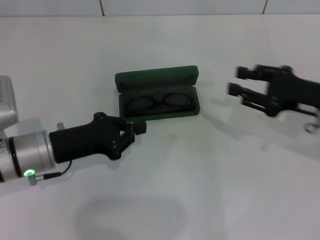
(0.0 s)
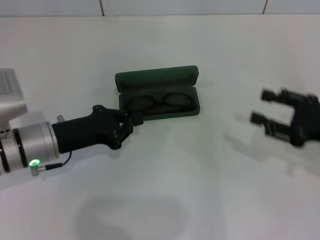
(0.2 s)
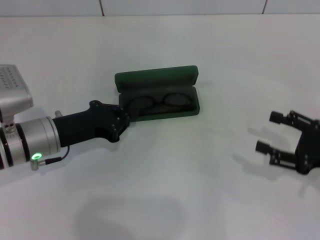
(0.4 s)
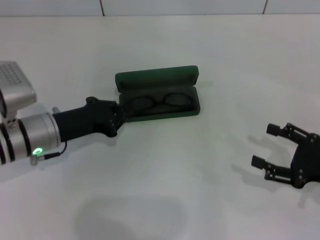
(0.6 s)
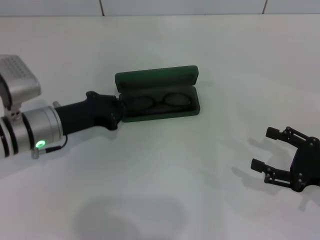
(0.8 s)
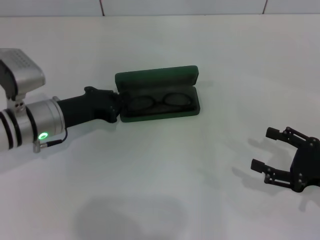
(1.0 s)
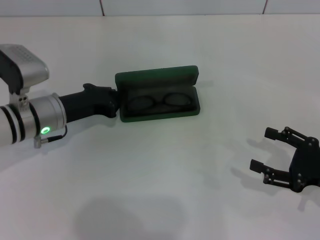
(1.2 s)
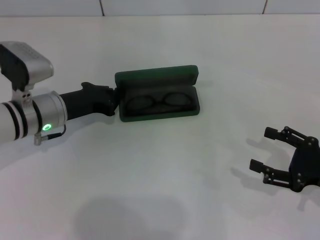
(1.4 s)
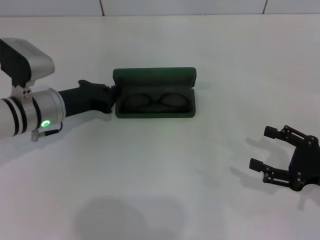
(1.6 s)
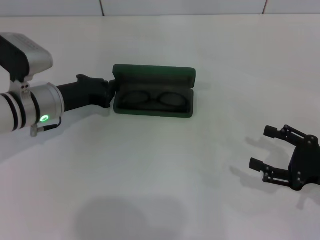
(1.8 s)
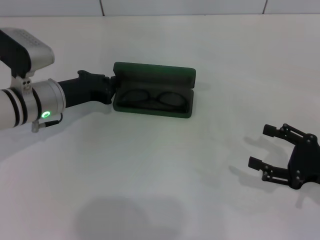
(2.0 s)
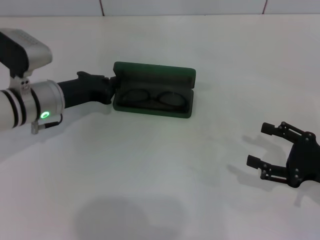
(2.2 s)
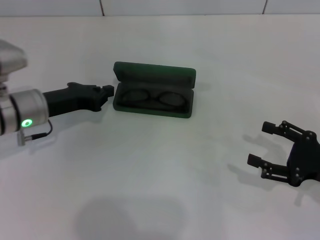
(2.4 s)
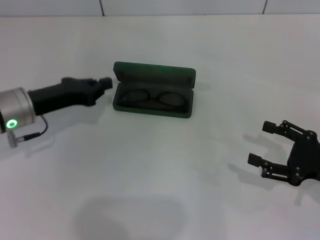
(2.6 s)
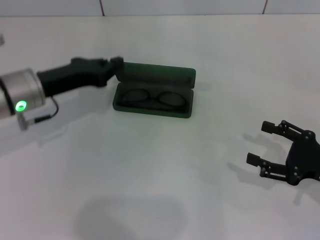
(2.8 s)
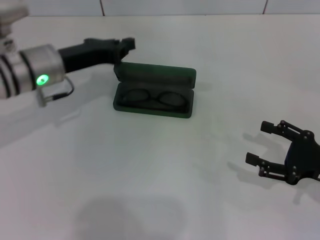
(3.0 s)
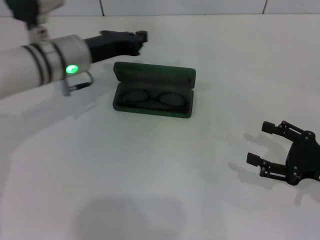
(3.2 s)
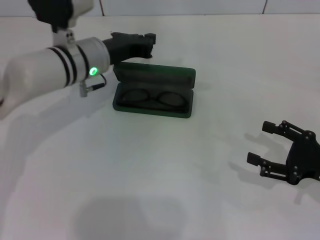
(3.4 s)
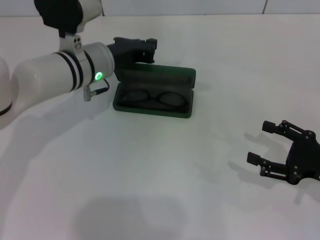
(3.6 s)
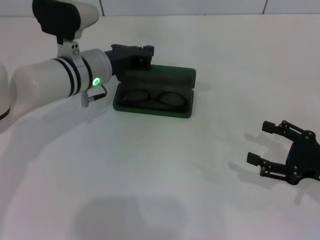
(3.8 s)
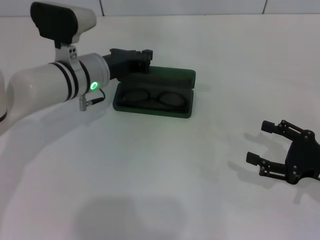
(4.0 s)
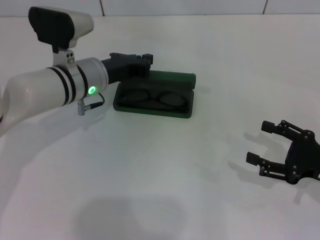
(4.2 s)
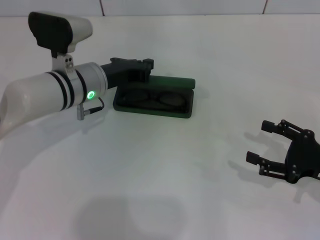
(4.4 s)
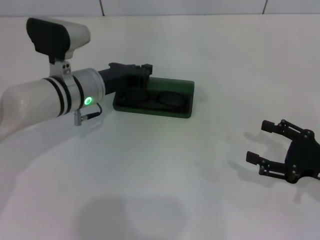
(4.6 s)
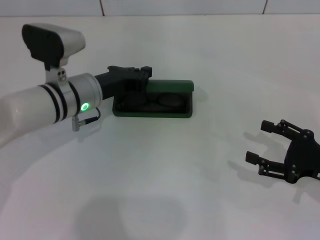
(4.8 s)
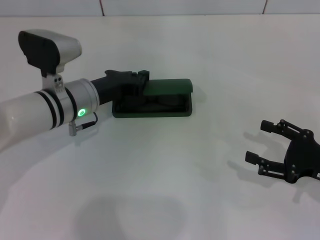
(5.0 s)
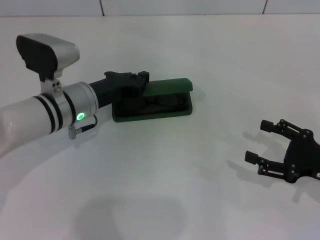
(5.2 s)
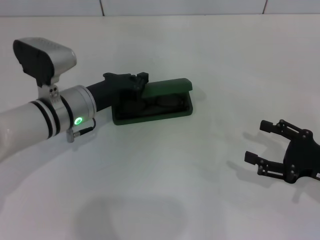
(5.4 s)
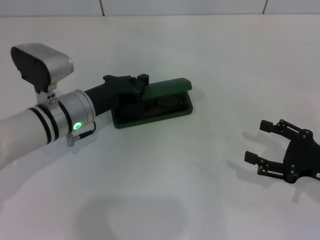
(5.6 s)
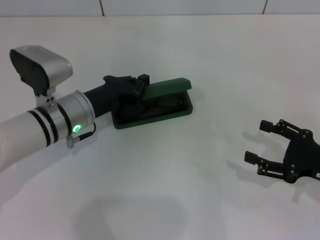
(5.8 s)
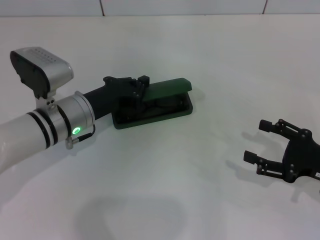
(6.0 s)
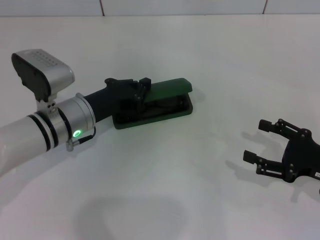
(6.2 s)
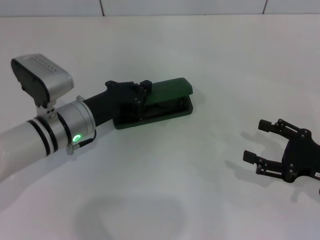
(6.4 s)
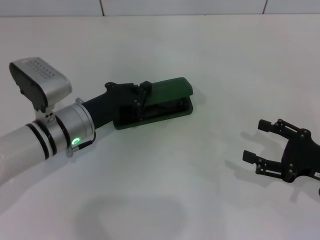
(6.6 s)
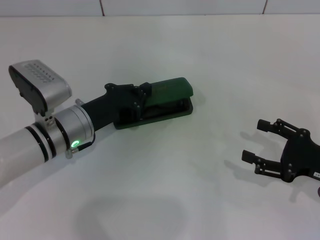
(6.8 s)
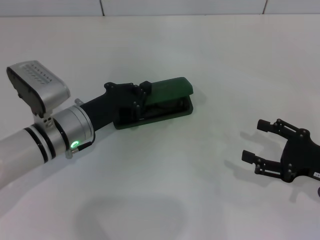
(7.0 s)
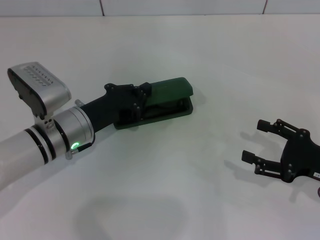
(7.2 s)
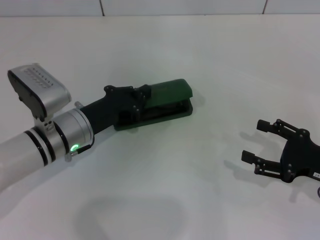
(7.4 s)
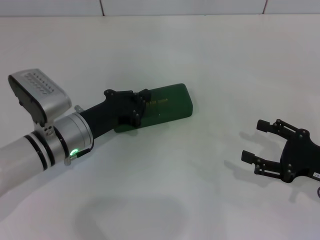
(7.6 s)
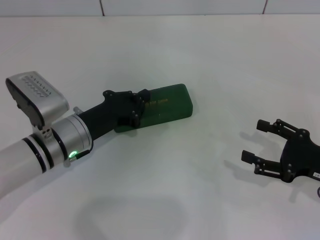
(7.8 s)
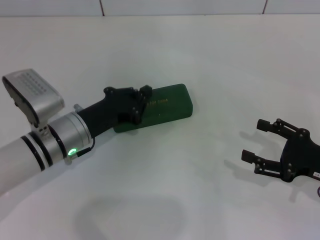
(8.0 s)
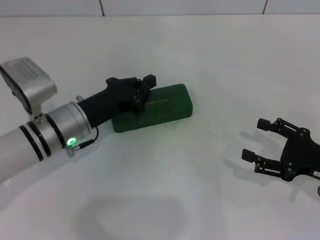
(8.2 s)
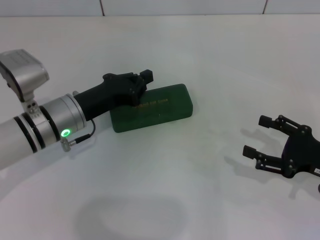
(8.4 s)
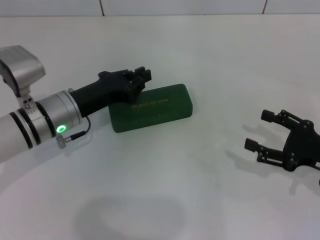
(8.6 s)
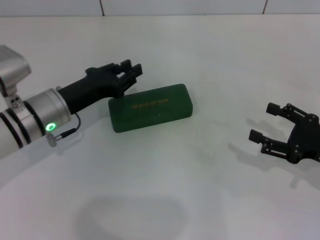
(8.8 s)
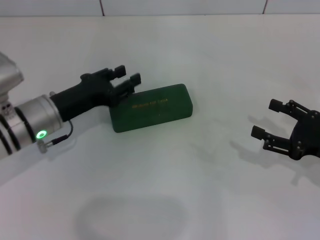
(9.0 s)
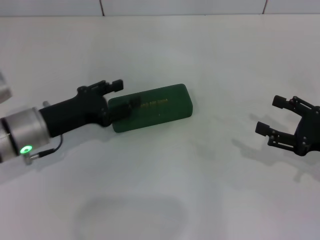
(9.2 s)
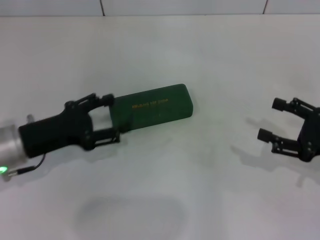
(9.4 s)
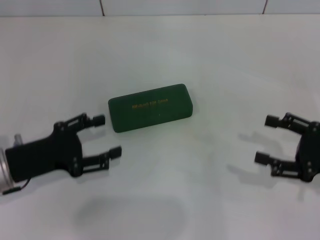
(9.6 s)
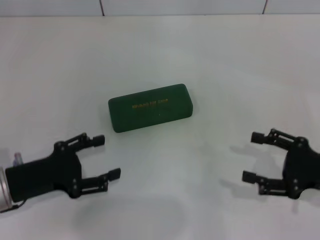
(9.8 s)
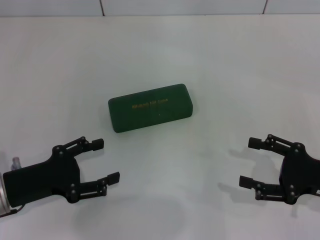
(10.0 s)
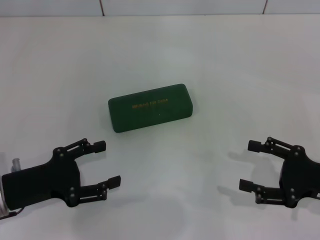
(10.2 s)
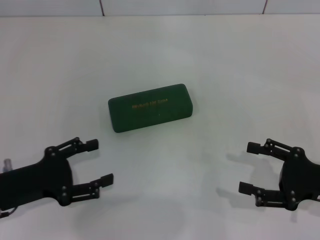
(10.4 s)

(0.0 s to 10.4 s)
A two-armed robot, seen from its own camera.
Step, 0.0 s - 7.6 s: Close the glasses case with your left hand.
0.0 s - 1.4 s: The left gripper moves forward, about 5 cm, while the right gripper goes roughly 10 cm backward and downward, and opens up.
1.4 s - 3.0 s: The left gripper goes some 5 cm upward.
3.0 s - 4.4 s: The left gripper heads to the right, covering about 5 cm.
4.4 s - 6.0 s: The left gripper moves about 5 cm.
6.0 s - 9.0 s: The grippers move only a little.
9.0 s - 10.4 s: The left gripper goes roughly 15 cm backward and to the left, and opens its fingers.

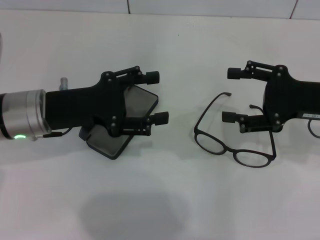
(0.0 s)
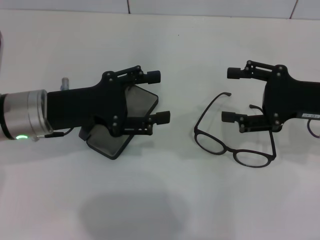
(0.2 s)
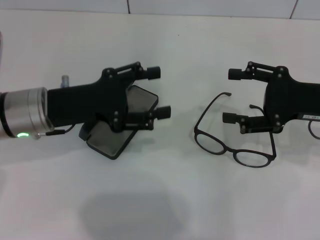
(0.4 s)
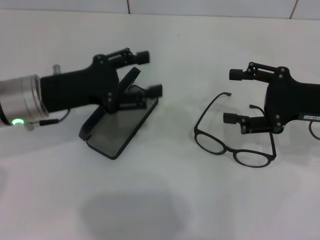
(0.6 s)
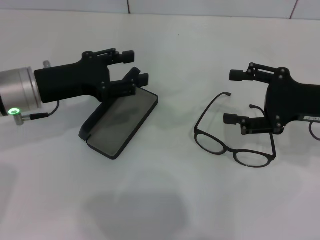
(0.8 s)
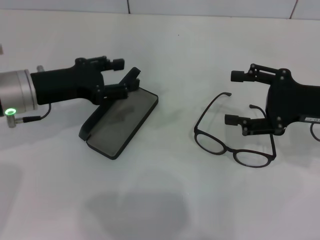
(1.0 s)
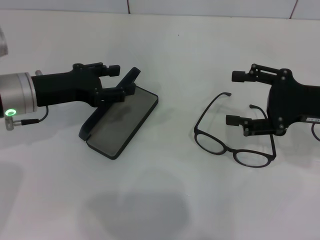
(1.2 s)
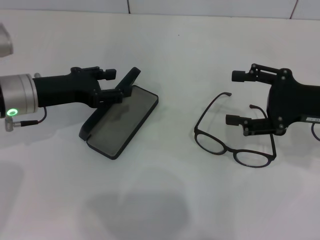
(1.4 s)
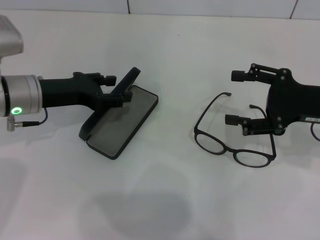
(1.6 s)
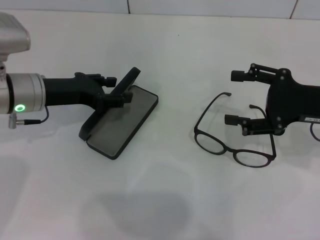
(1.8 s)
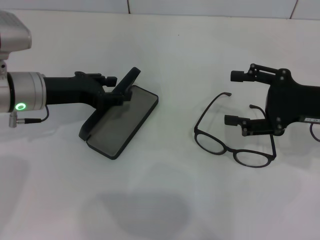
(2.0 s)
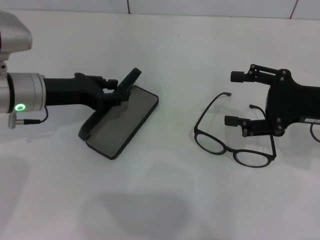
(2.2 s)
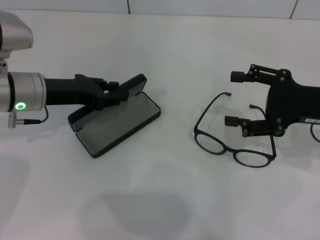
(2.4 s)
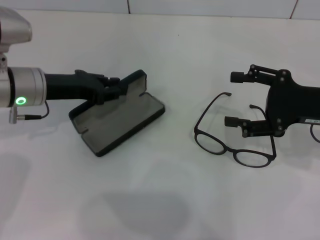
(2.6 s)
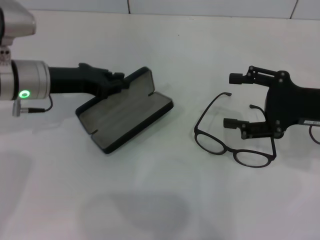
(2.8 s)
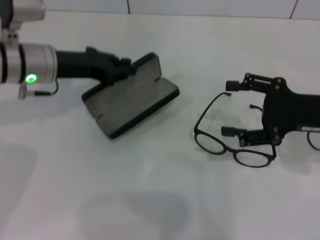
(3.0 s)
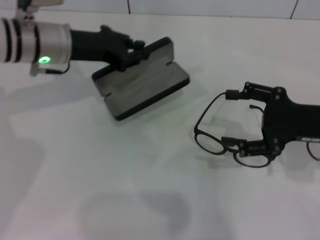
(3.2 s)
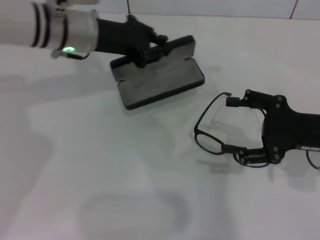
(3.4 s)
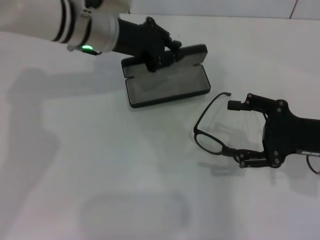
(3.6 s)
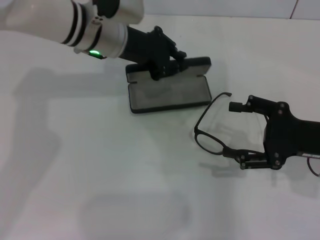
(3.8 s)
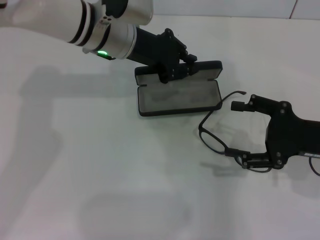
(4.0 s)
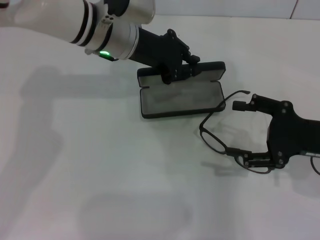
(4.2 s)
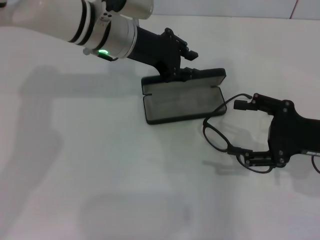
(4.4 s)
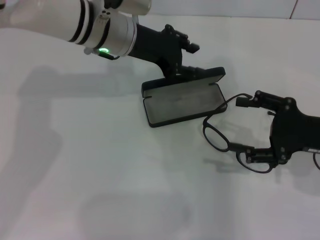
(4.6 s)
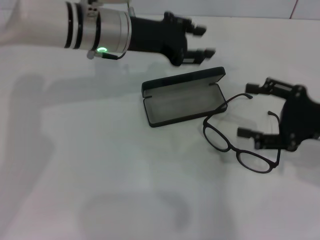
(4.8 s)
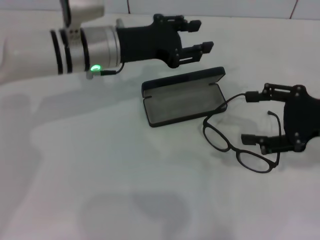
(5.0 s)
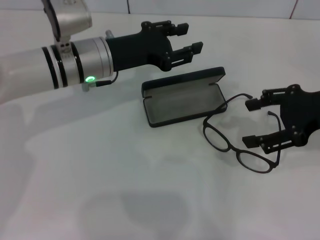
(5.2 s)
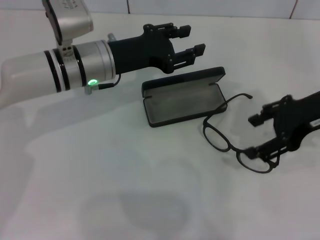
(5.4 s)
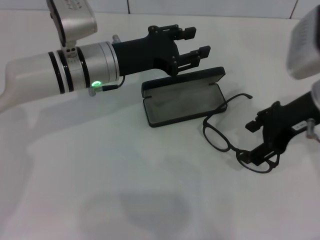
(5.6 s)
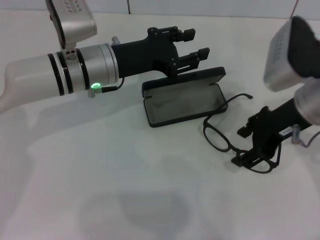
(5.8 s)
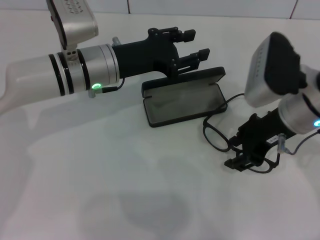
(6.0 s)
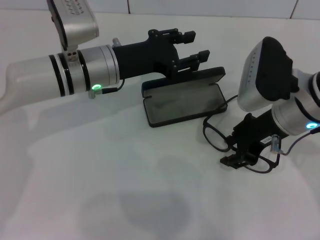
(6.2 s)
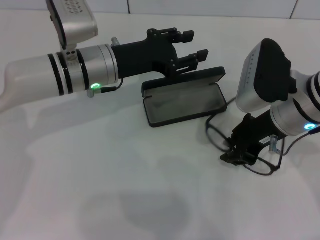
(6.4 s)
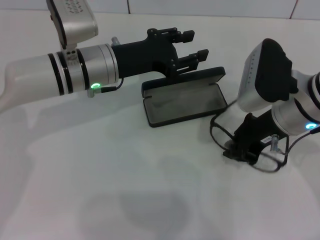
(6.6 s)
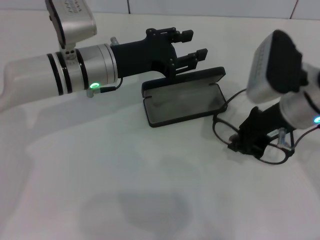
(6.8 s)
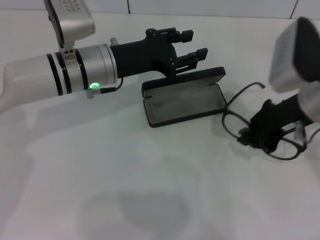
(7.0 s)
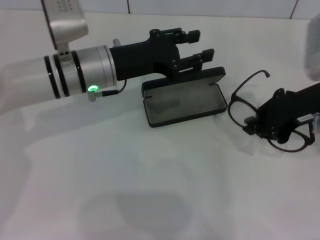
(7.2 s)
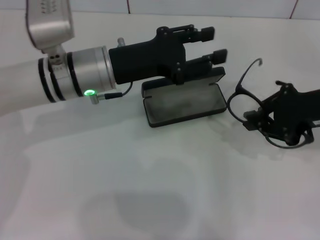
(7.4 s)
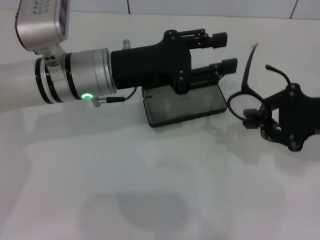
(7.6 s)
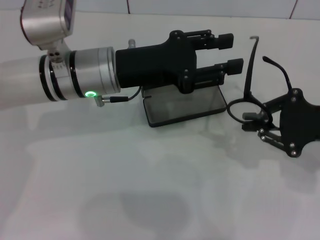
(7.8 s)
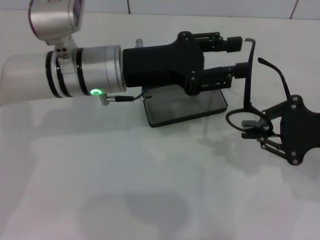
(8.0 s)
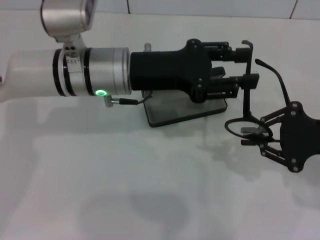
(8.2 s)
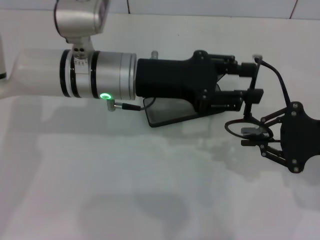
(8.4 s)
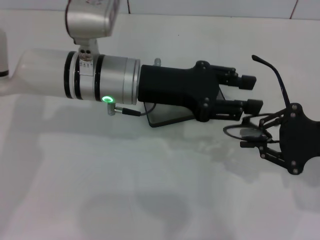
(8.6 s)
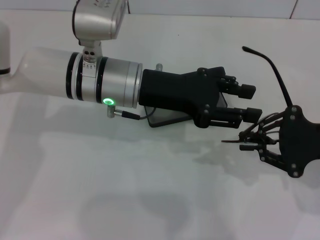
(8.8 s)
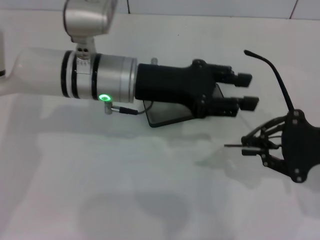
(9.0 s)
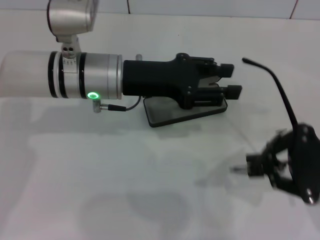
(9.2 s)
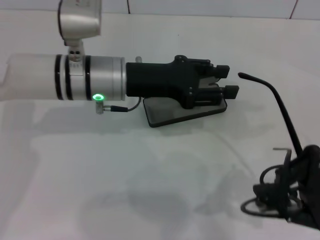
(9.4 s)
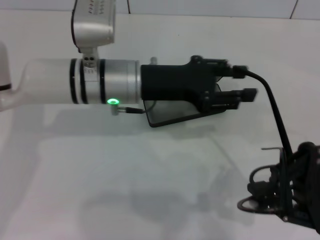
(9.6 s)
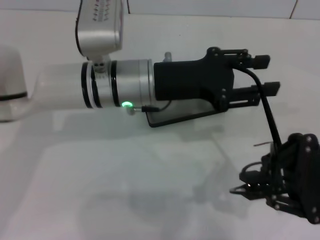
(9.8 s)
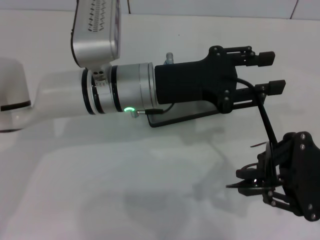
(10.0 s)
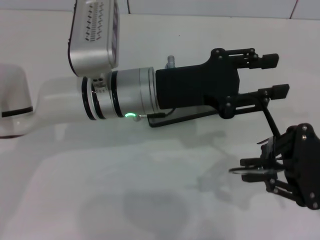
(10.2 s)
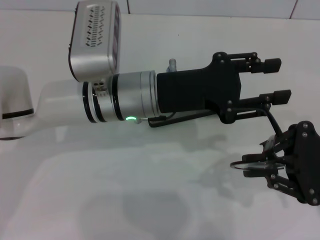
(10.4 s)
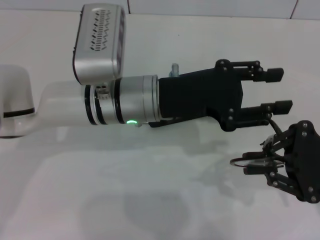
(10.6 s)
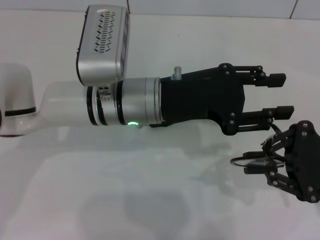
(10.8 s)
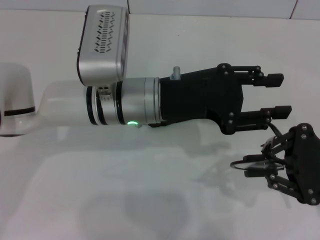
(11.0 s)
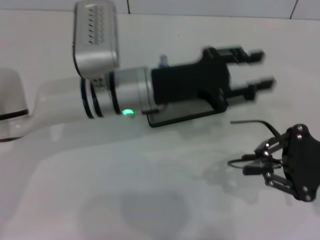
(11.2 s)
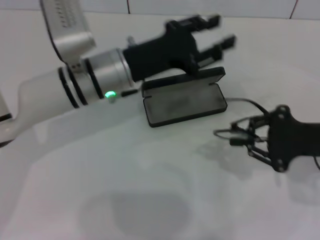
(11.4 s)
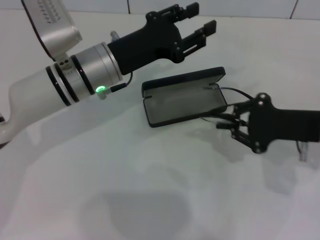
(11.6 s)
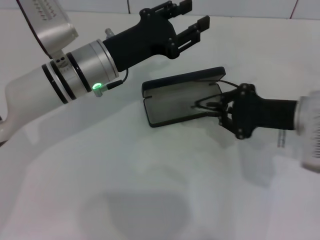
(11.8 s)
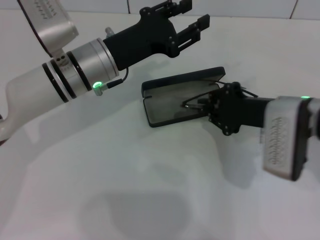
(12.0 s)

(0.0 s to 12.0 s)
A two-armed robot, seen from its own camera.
Step, 0.0 s - 2.4 s: Grab the glasses case with your left hand.
Step, 2.6 s - 4.2 s: Place the glasses case in the center of the table with your left hand.
Step, 4.4 s - 6.6 s: Grab the eyeglass frame with your right hand.
Step, 6.8 s - 10.8 s: Fold the frame with your left hand.
0.0 s - 1.6 s: The left gripper ends up about 5 cm from where it was.
1.6 s - 3.0 s: The left gripper ends up about 5 cm from where it was, and closes.
3.0 s - 4.4 s: The left gripper heads to the right, covering roughly 10 cm.
4.4 s - 6.0 s: The right gripper is displaced to the left, upward and forward by about 15 cm. Meanwhile the left gripper shifts by some 5 cm, and opens its fingers.
6.0 s - 7.6 s: The right gripper moves to the right, roughly 10 cm, and closes.
10.4 s - 12.0 s: The left gripper is displaced to the left by roughly 5 cm. The right gripper is displaced to the left and forward by approximately 10 cm.
